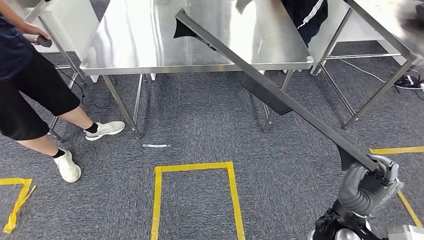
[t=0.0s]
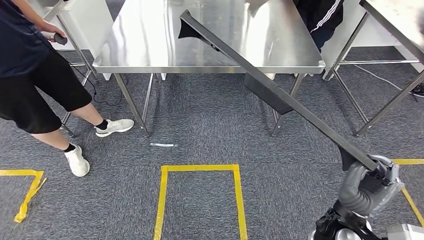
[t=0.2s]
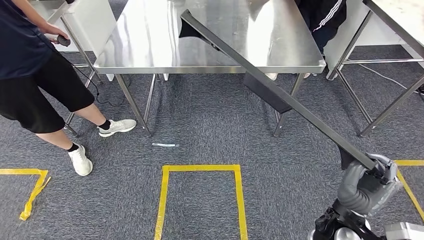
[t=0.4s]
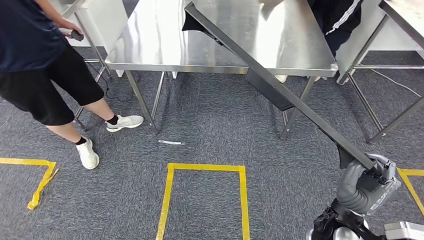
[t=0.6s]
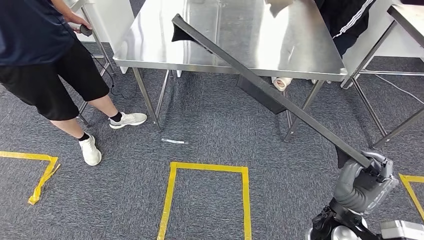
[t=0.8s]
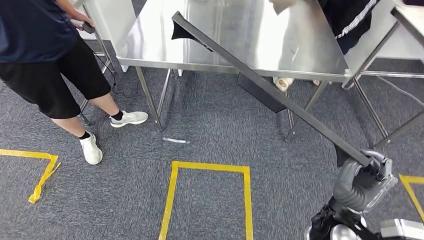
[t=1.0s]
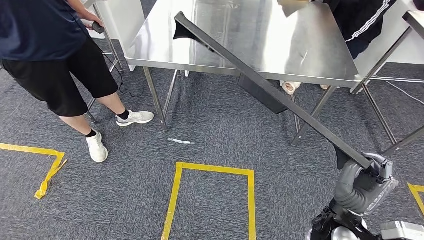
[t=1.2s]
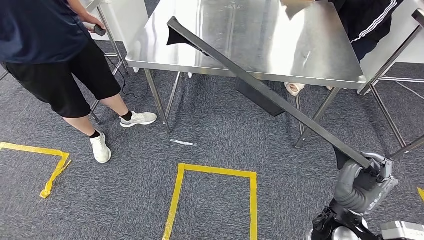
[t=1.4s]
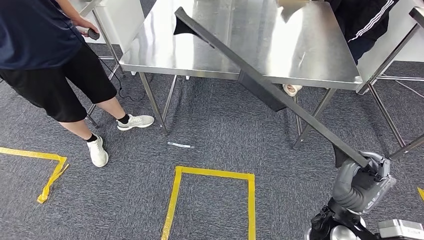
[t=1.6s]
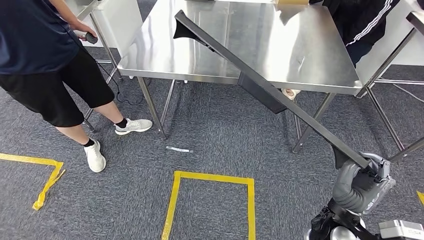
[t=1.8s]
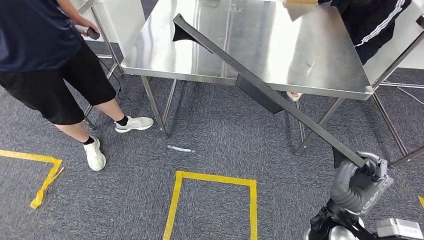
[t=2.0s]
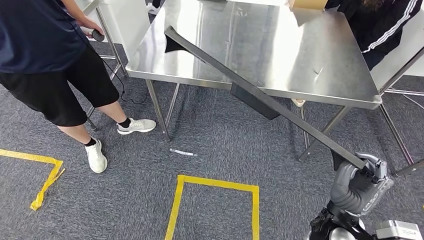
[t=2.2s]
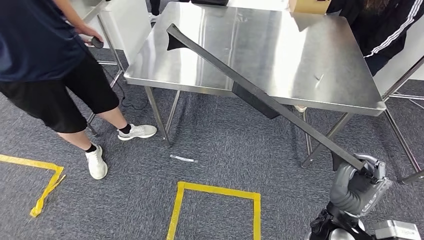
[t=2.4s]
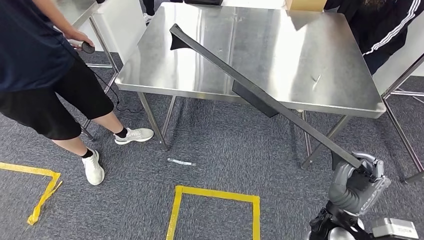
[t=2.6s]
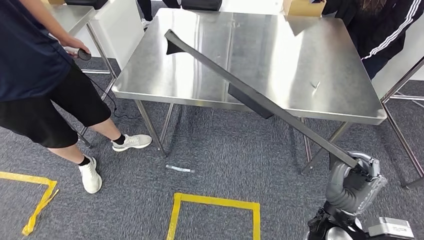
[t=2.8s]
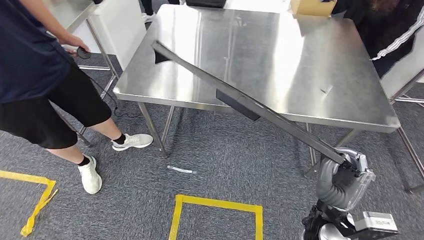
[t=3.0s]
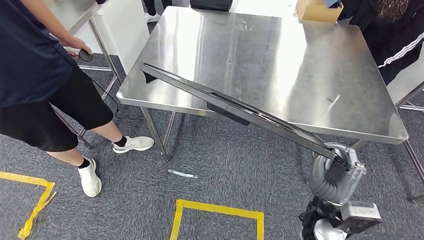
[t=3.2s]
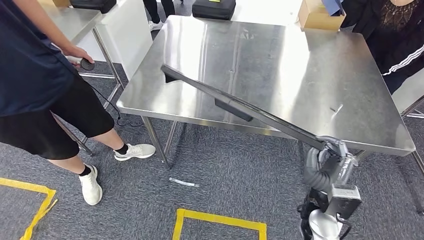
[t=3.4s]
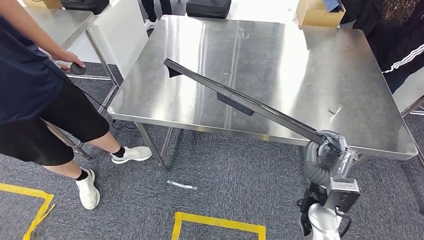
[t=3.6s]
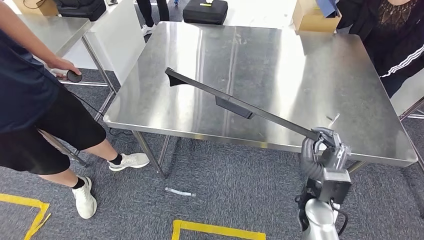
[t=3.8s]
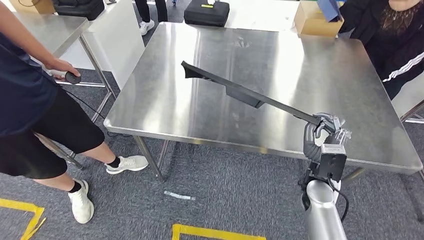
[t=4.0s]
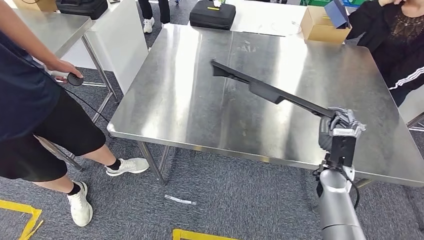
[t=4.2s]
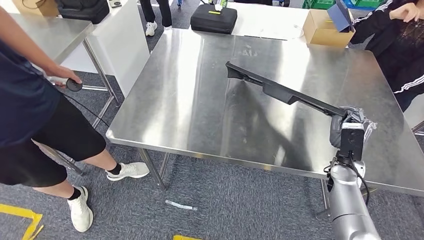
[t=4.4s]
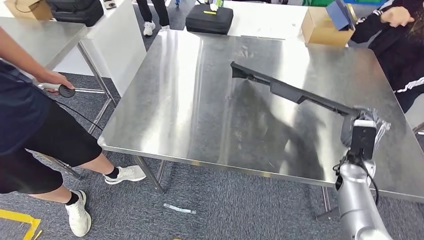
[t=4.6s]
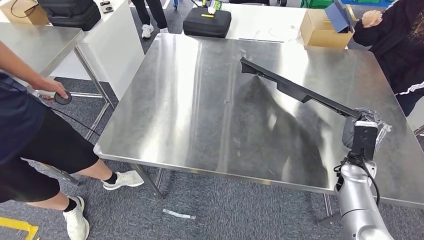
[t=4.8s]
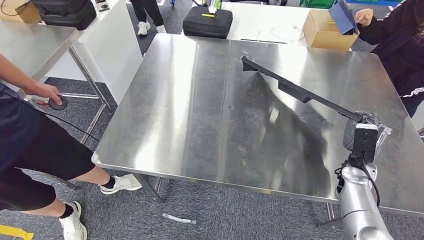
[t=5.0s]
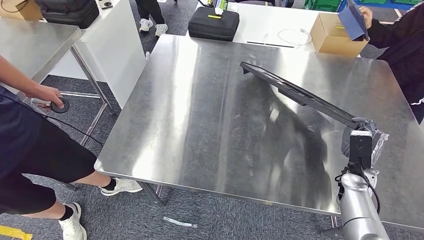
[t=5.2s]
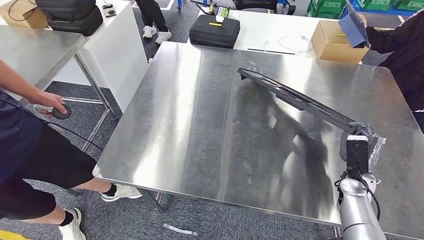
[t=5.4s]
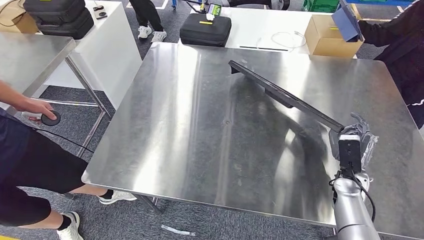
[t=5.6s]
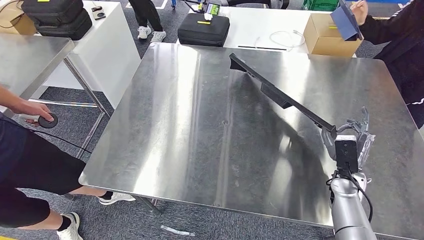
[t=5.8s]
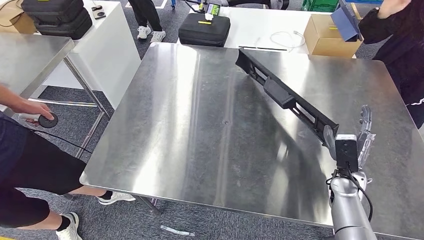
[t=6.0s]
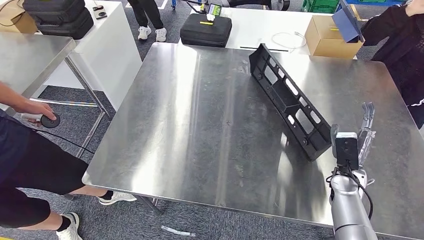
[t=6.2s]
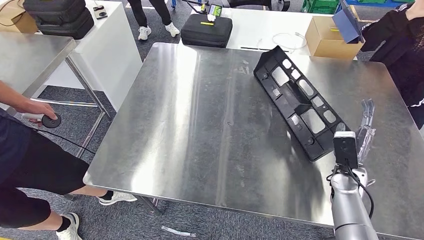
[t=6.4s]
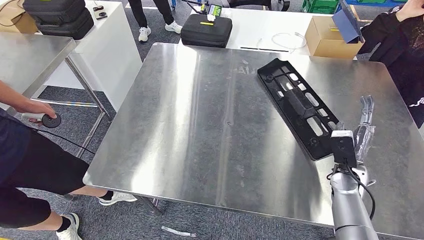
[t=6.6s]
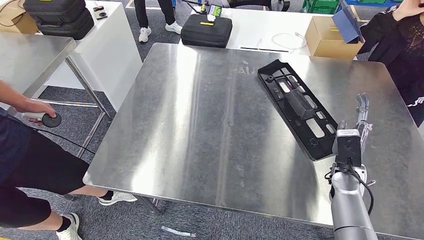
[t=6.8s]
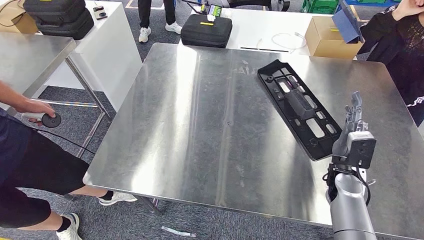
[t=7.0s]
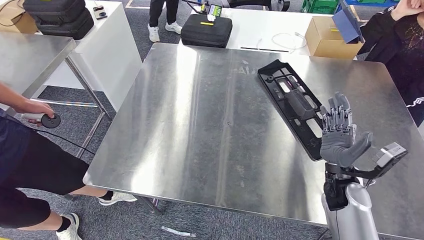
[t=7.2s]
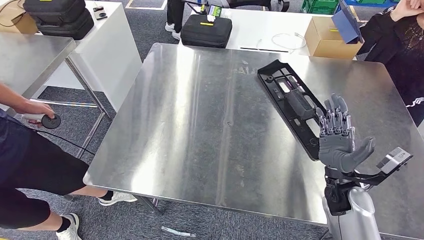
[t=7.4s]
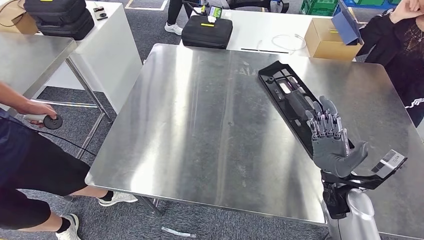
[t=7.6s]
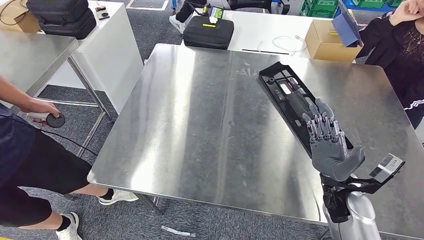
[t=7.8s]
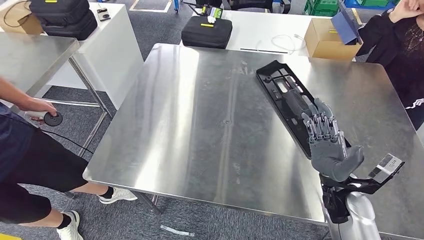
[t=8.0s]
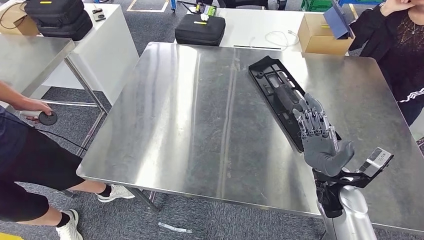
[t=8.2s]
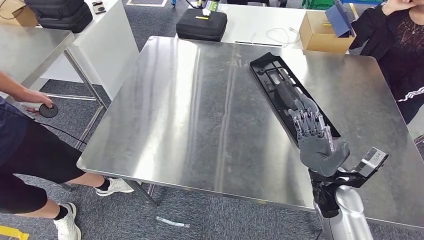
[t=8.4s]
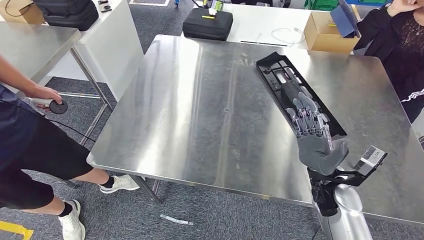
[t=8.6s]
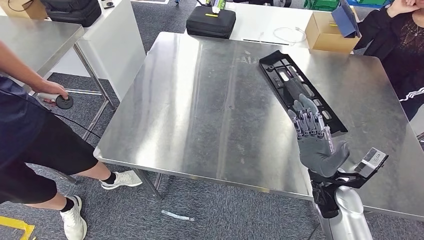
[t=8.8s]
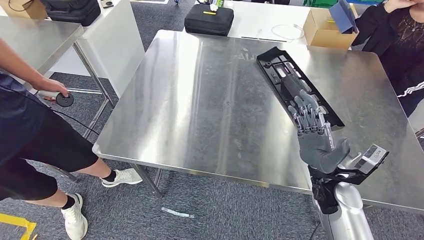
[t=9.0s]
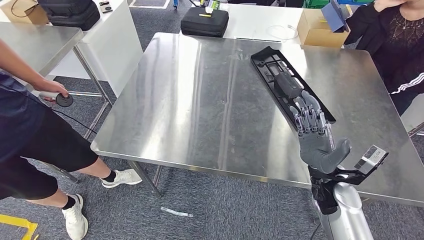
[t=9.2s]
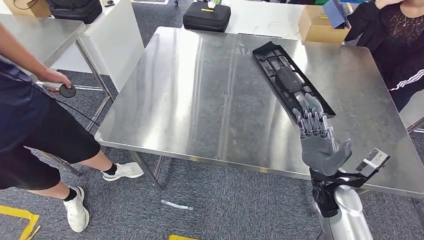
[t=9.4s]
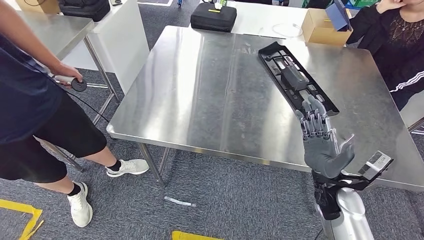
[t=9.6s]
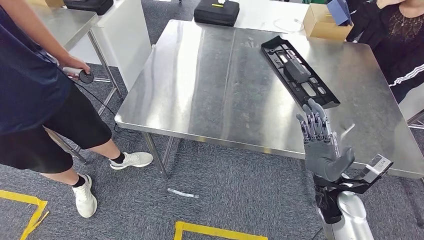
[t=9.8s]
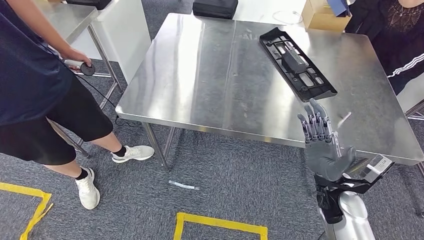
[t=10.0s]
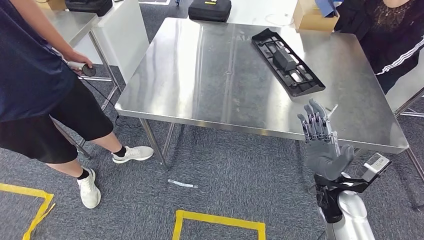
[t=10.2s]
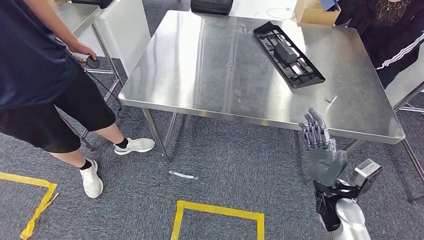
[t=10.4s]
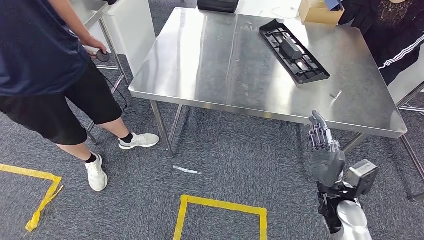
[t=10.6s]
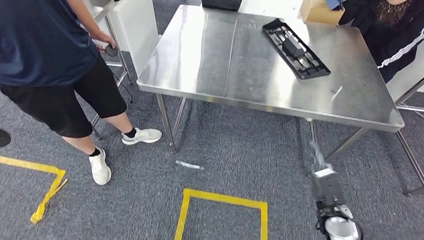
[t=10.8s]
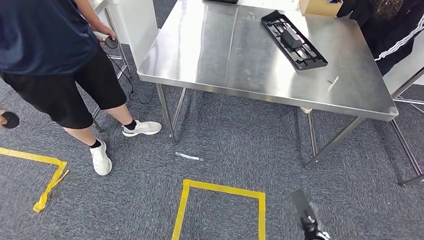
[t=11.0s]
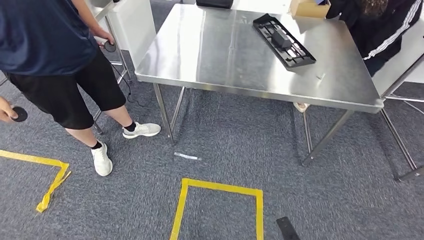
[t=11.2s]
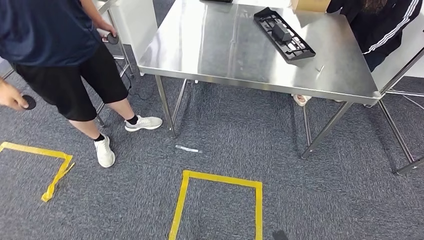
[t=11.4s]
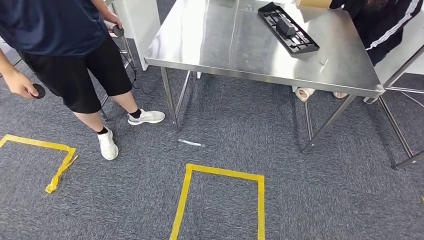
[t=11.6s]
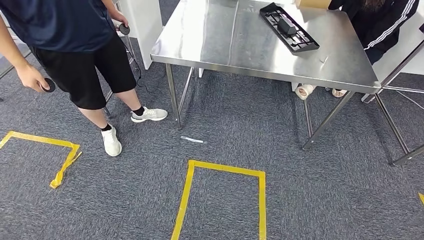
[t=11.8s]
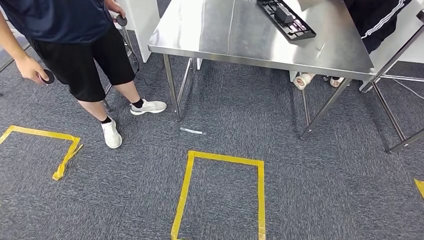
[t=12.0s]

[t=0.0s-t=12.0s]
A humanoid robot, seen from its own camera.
Step, t=0.0s to t=5.4s: Insert the large material into the corresponding slot on the workbench.

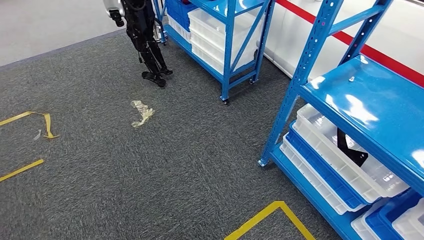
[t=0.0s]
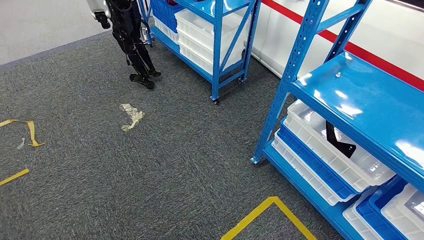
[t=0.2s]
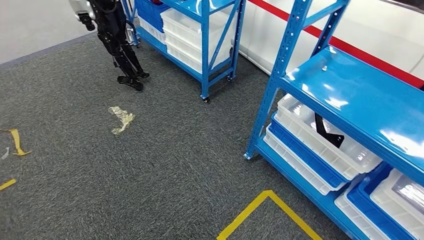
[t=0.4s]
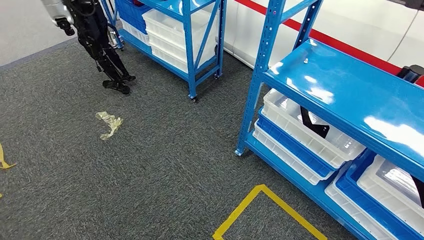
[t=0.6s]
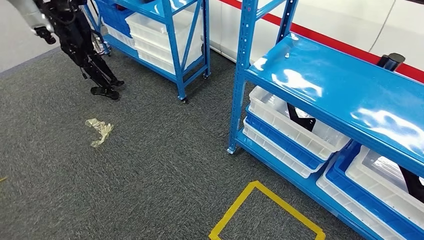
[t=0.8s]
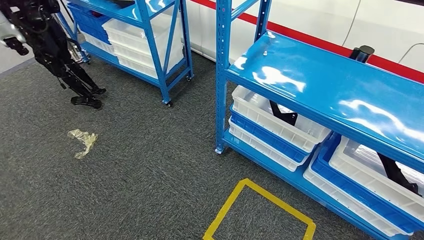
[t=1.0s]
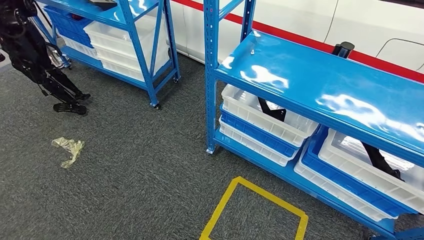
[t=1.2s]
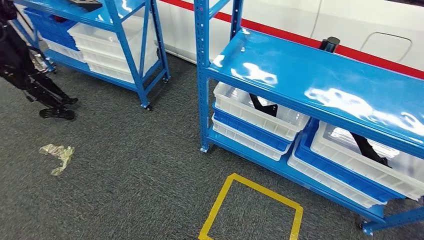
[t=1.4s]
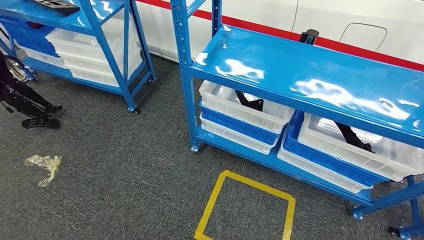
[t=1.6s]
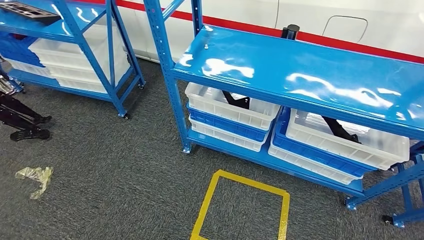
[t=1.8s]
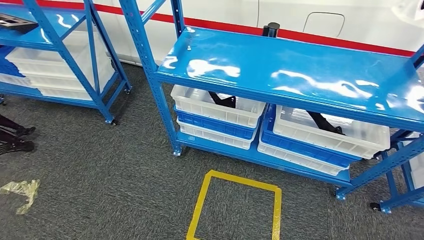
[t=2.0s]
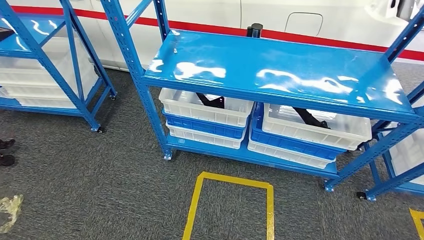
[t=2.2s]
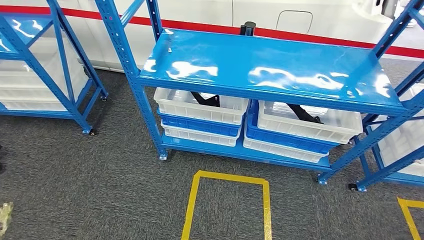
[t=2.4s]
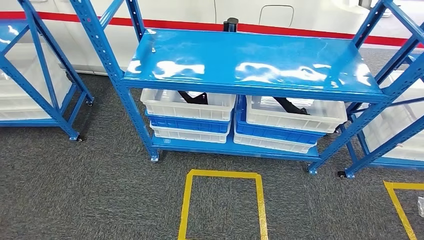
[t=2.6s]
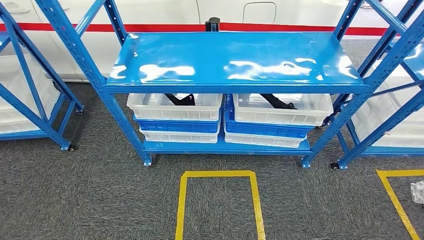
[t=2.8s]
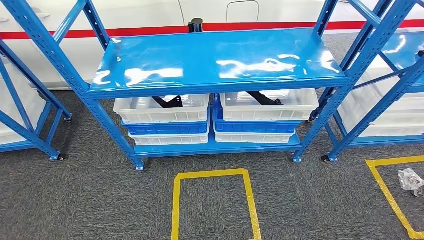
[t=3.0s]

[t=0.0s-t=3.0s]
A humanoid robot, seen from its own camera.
Step, t=0.0s to t=3.0s: Move to the initial position of the shelf.
